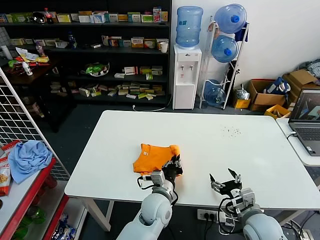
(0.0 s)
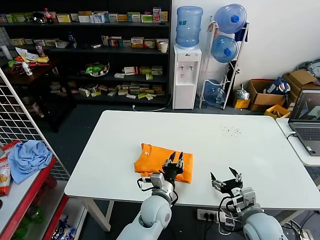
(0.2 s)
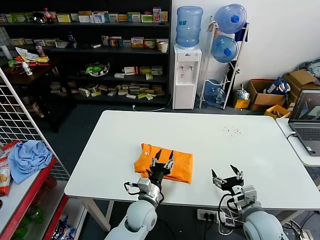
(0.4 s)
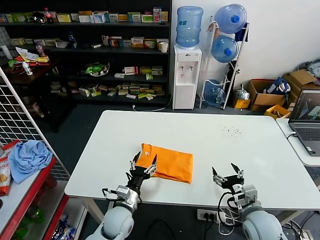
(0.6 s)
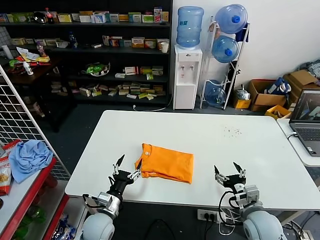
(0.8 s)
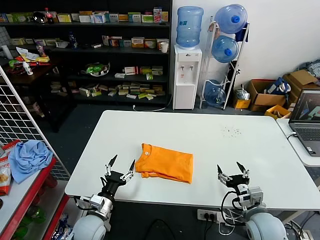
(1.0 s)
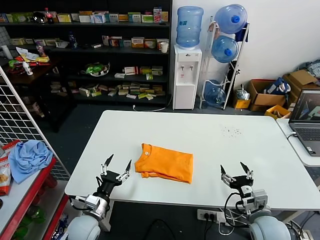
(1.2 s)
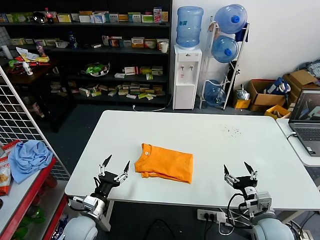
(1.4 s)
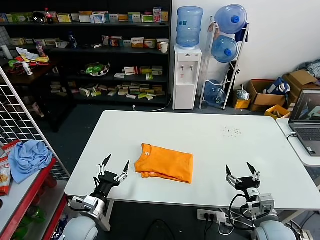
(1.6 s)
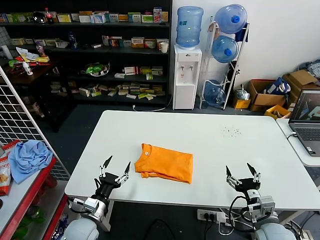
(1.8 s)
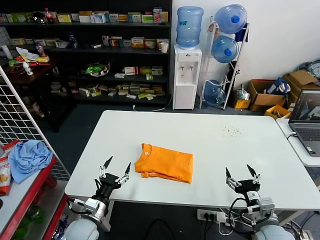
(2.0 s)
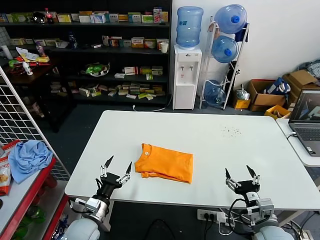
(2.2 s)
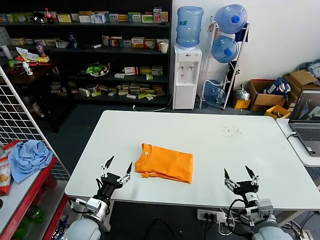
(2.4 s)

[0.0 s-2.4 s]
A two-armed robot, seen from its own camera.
Task of the whole recording: fold and organize the clothes.
0.0 to 1.2 s: The left gripper is displaced to the left by some 25 cm, and opens up.
1.2 to 2.4 s: The grippers move only a little.

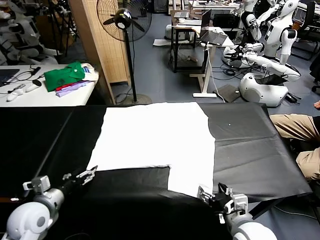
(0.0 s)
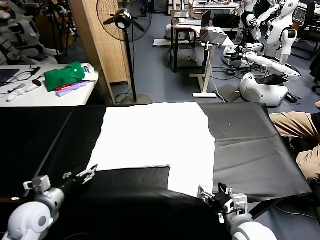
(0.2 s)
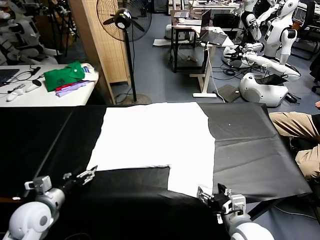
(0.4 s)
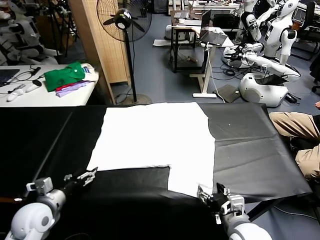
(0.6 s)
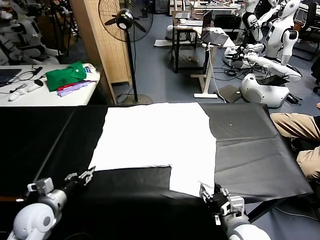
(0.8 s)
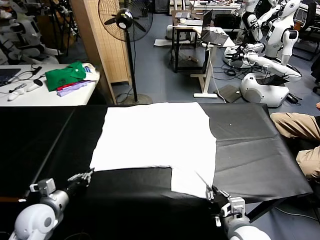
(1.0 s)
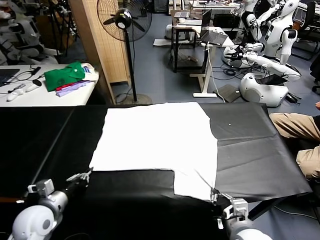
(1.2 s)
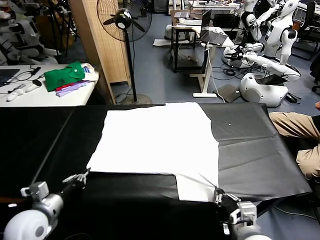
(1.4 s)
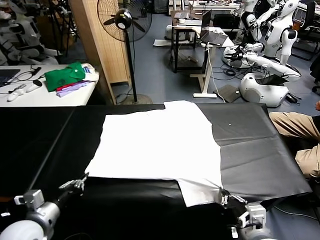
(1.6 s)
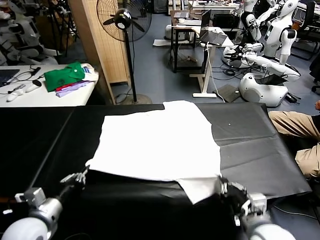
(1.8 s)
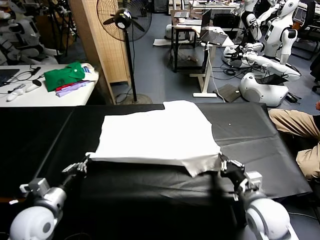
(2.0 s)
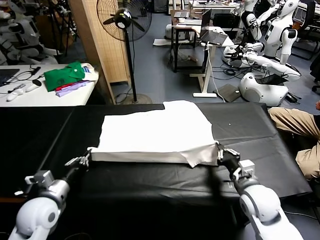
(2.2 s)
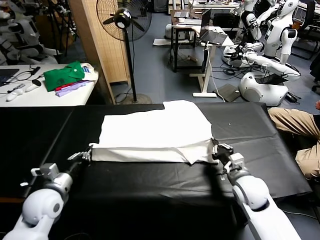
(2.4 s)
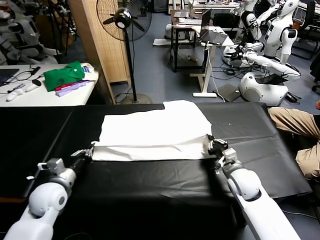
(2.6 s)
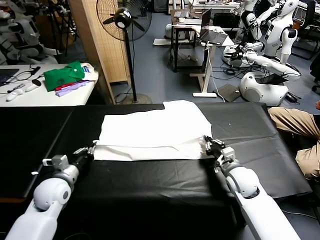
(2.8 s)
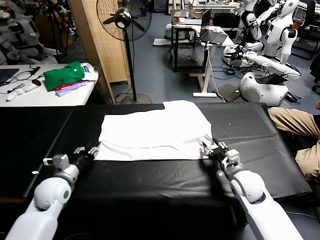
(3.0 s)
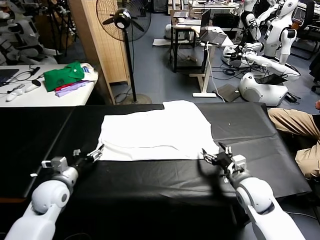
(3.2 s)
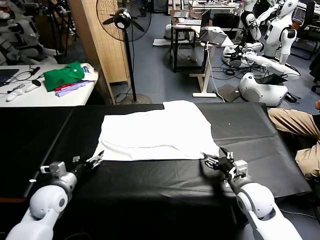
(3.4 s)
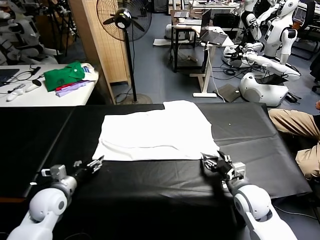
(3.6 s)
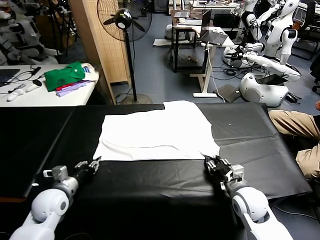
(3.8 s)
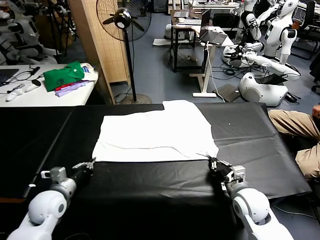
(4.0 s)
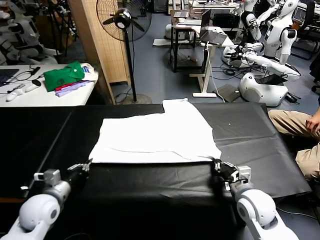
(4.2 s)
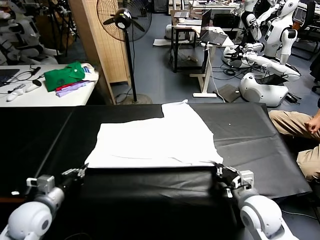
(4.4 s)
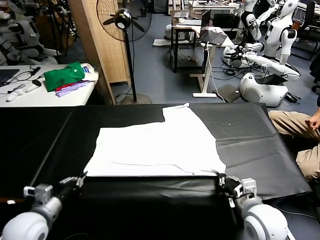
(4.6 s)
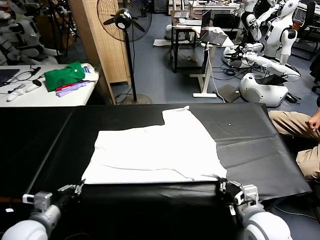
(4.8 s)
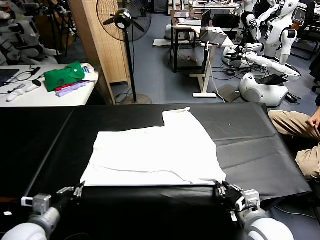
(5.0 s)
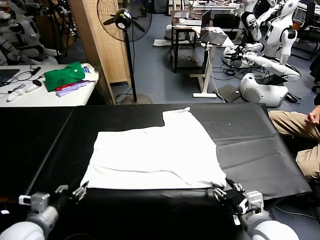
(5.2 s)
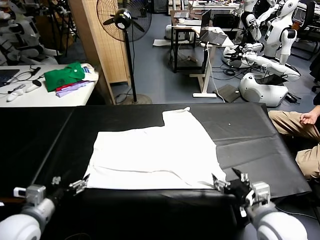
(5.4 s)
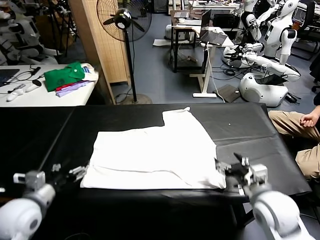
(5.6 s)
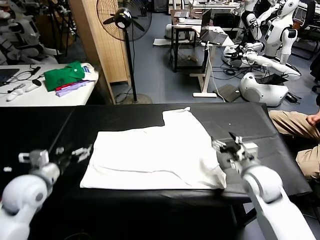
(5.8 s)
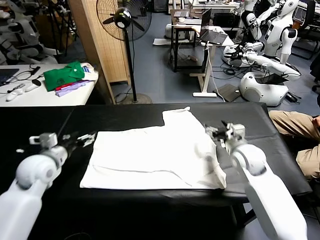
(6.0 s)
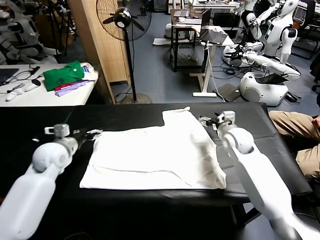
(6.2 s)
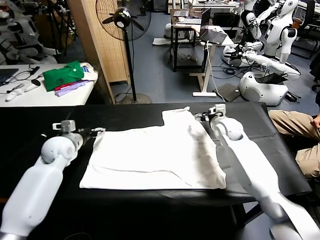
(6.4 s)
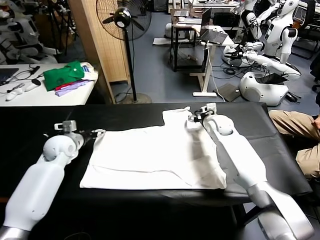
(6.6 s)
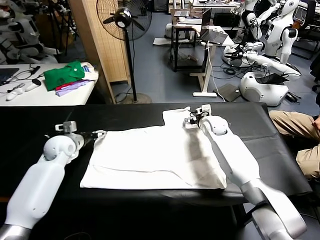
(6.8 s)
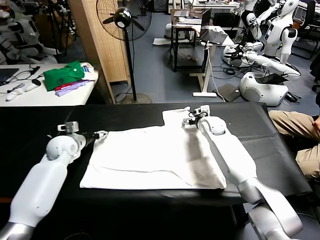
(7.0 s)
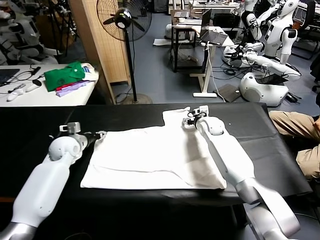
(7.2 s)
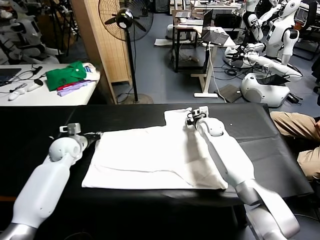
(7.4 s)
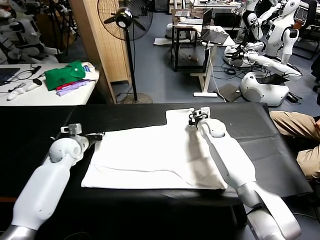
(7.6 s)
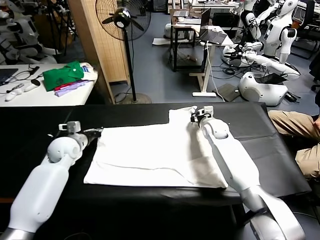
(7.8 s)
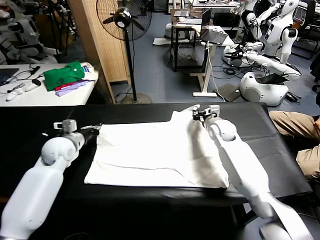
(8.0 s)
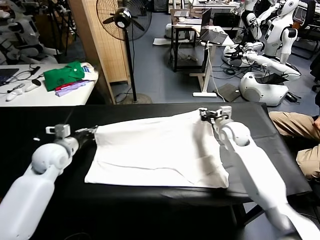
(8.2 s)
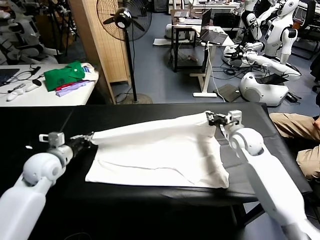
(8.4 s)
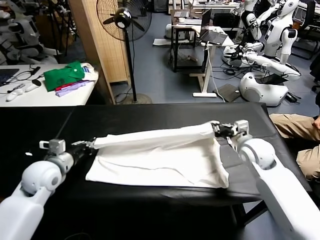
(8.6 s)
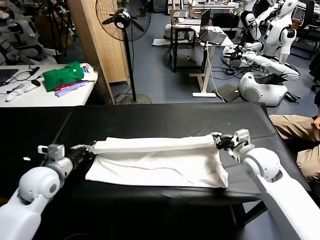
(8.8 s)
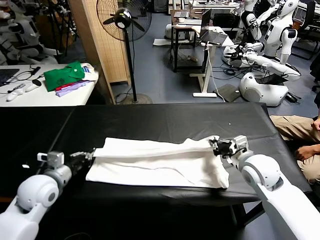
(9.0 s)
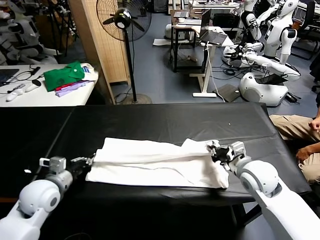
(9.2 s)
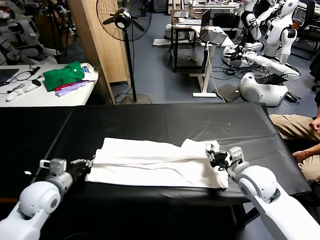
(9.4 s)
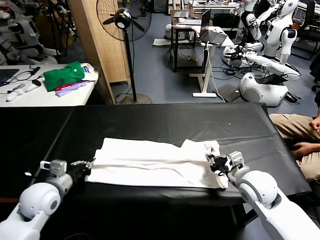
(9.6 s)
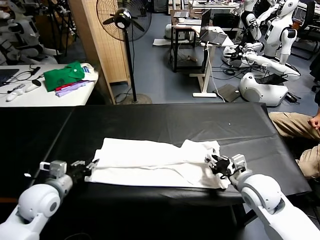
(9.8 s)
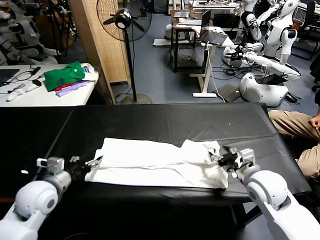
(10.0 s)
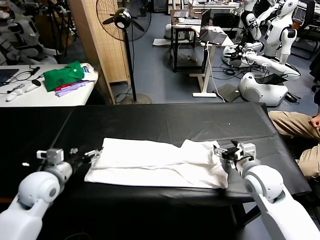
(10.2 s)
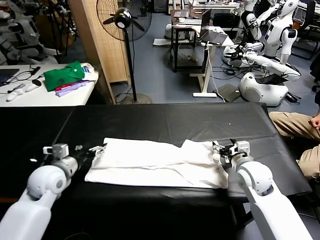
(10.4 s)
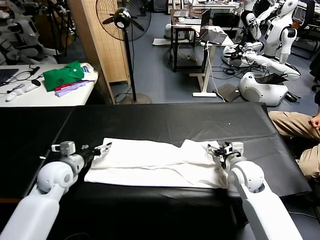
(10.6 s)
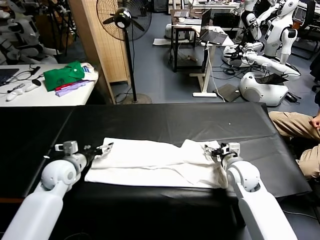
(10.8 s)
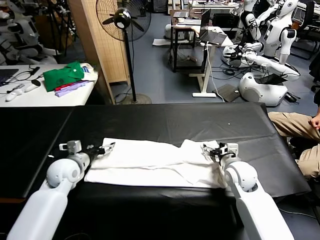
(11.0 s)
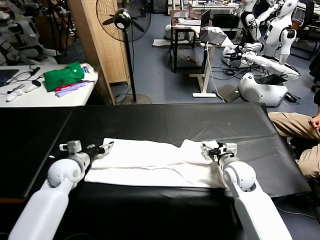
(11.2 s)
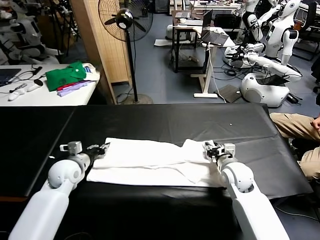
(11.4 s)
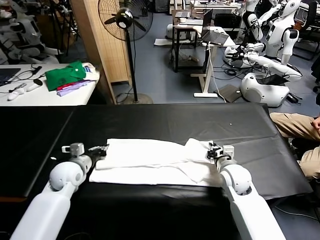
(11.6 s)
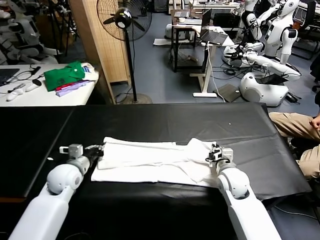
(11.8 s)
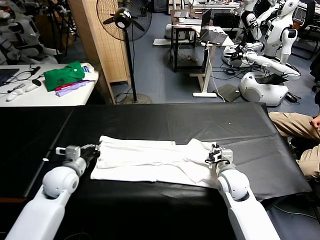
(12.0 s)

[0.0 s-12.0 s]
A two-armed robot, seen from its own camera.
Task of the whole recording: fold and organize the clothes.
Step, 0.0 to 1.2 s: use both grippers simultaneously to clamp the lower edge of the clothing fabric.
Step, 1.4 to 2.8 s: use both grippers to drag the lower edge of the fabric forward and fold it over the upper edge.
Step, 3.0 to 5.0 s: Drag the clothes downward with both gripper.
Step, 5.2 to 7.6 s: use both grippers simultaneously to clamp the upper edge of the clothing fabric.
Step, 7.8 to 9.8 s: use both grippers to drag the upper edge of the fabric backward and fold it over the lower edge.
1.6 to 3.0 s: Both grippers travel together forward, about 15 cm. The left gripper opens its fingers. Meanwhile the right gripper opens up.
3.0 to 4.4 s: Both grippers travel together backward, approximately 10 cm. The right gripper closes, while the left gripper closes.
4.4 to 6.0 s: The left gripper shifts approximately 15 cm forward and upward, and opens, while the right gripper is displaced forward by approximately 25 cm, and opens its fingers.
6.0 to 7.6 s: The right gripper moves forward and to the left, approximately 15 cm, and closes, while the left gripper heads forward and downward, covering roughly 10 cm, and closes its fingers.
7.6 to 9.0 s: Both grippers travel together backward, roughly 20 cm.
9.0 to 10.4 s: The right gripper moves some 5 cm, and opens. The left gripper opens.
10.4 to 12.0 s: The left gripper closes. The right gripper shifts by about 5 cm, and closes its fingers.

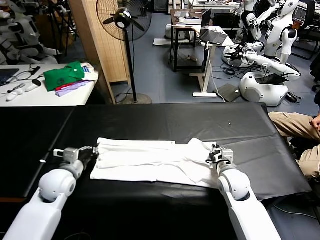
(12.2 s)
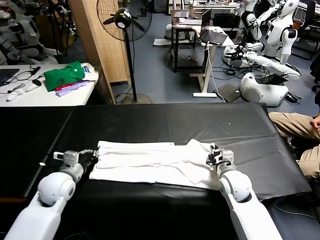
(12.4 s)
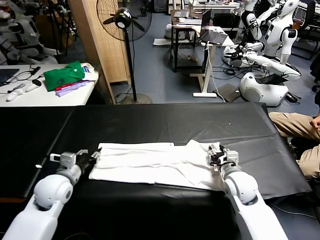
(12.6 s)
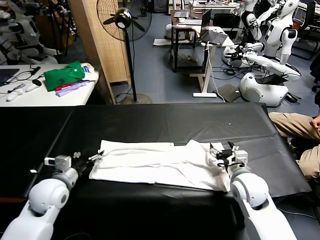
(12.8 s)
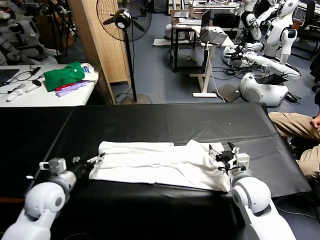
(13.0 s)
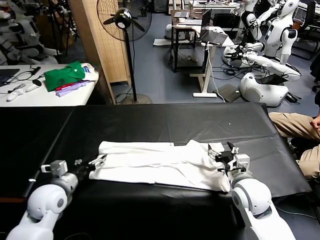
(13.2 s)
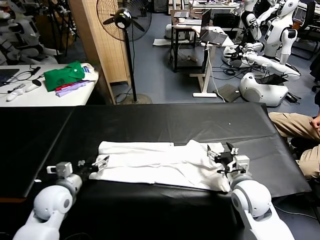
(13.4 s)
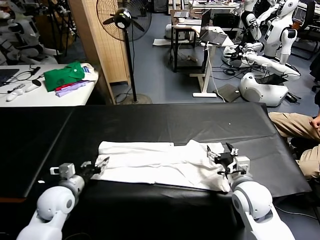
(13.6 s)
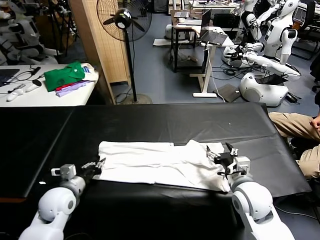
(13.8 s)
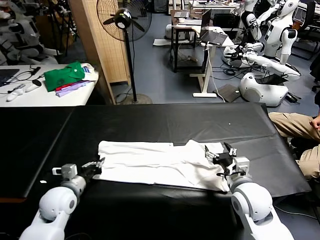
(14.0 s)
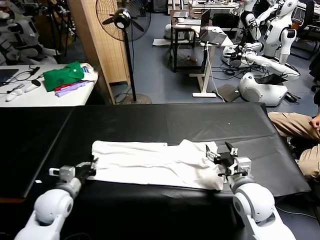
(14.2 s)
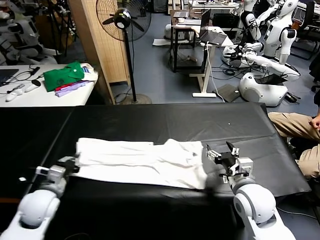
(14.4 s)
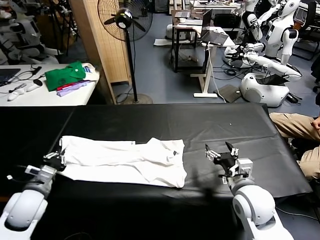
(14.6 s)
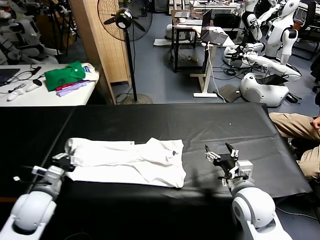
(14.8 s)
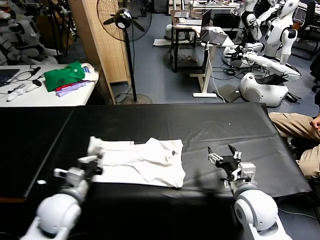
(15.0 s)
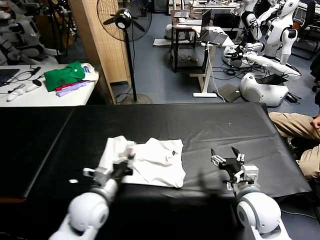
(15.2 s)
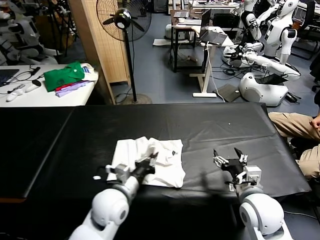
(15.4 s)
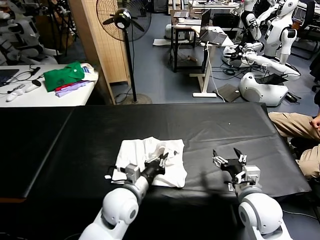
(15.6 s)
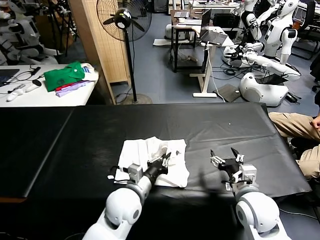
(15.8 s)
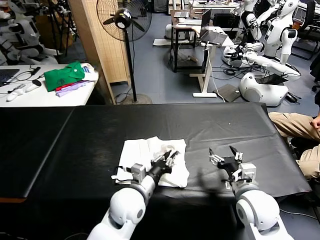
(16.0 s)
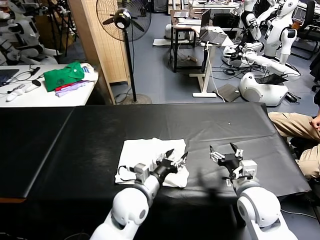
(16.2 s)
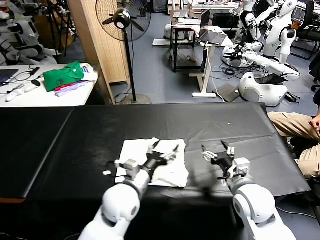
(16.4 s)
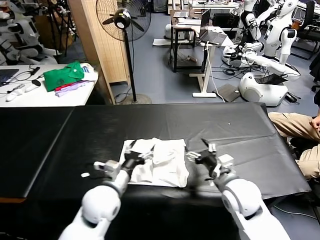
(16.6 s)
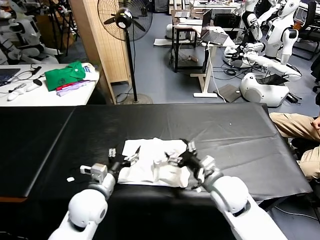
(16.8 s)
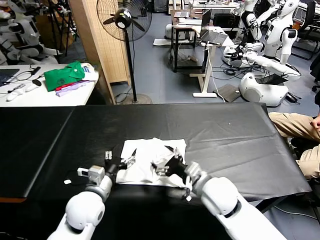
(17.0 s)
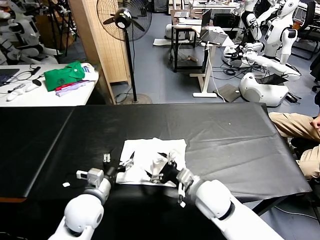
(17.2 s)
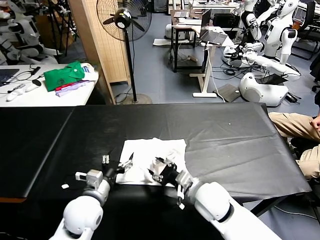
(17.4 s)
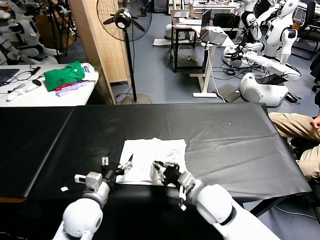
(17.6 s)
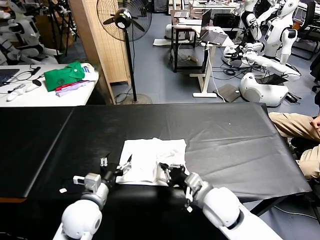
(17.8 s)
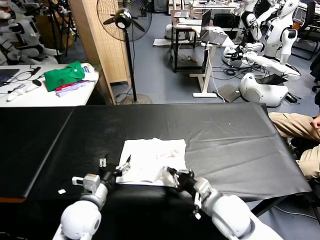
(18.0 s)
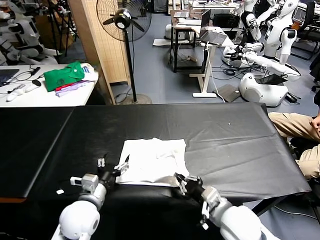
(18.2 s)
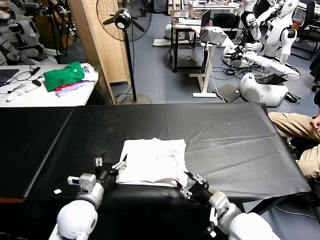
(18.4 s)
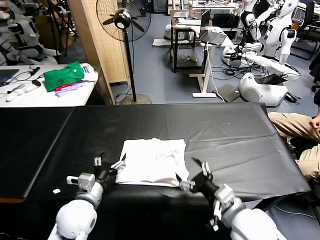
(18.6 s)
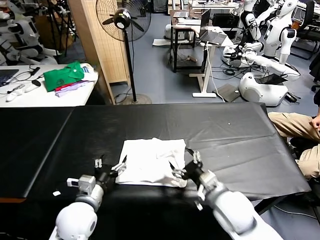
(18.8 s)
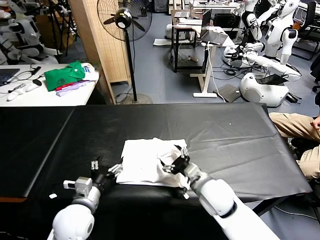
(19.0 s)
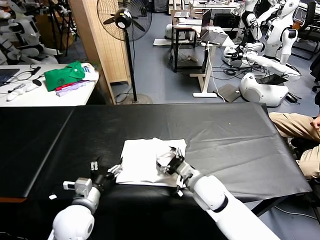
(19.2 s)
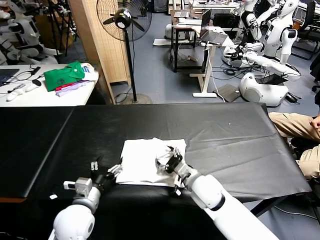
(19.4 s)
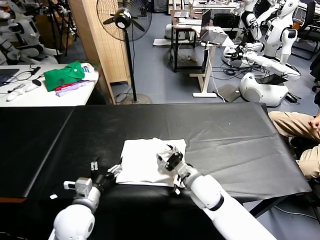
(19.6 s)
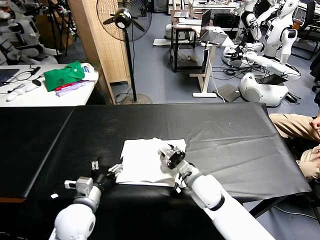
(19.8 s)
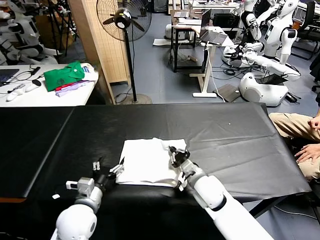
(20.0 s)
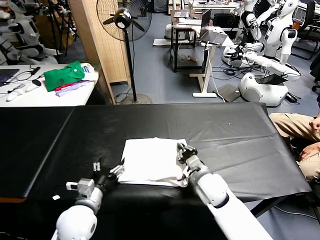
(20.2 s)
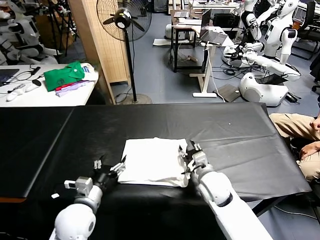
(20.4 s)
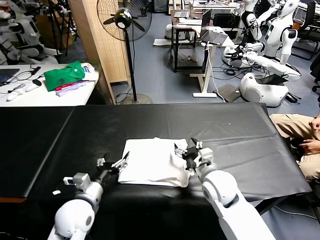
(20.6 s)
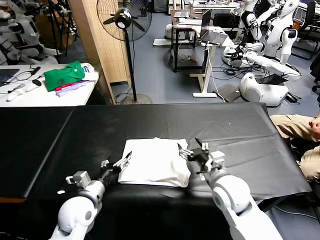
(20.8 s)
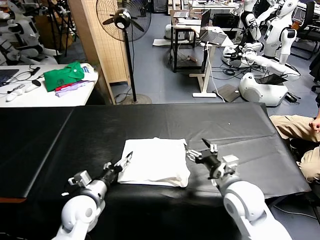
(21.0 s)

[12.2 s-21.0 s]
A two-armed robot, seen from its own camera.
Task of the whole recording: fold and organize the clothes.
Step, 14.2 to 16.0 s: use the left gripper to drag the left edge of the fabric to the left and folds it over the right edge.
12.2 to 13.6 s: The right gripper is displaced backward and upward by roughly 10 cm, and opens up. Meanwhile the left gripper shifts by about 5 cm, and opens.
13.6 to 15.2 s: The left gripper moves to the right, roughly 10 cm, and closes.
15.2 to 16.6 s: The left gripper reaches about 10 cm to the right, then returns, and opens its fingers. Meanwhile the right gripper shifts by approximately 5 cm.
16.6 to 18.0 s: The right gripper ends up about 5 cm from where it was, and closes up. The left gripper moves to the left, about 5 cm.
18.0 to 19.6 s: The right gripper heads forward, covering roughly 10 cm, and opens up.
19.6 to 21.0 s: The right gripper moves to the right, upward and backward, approximately 10 cm, and closes, then reopens.
